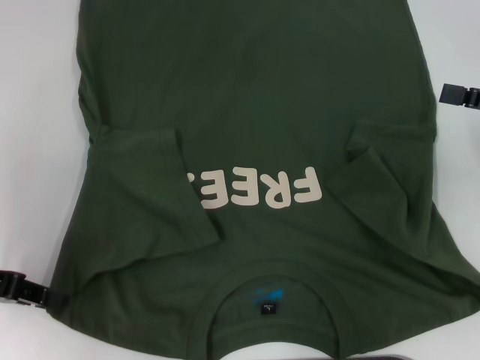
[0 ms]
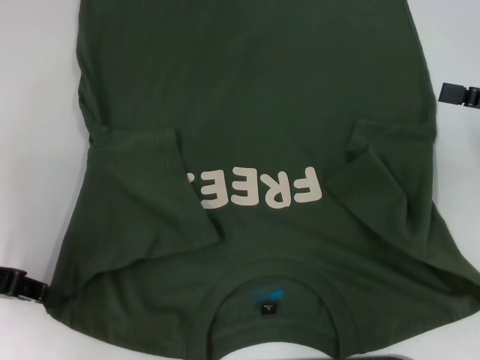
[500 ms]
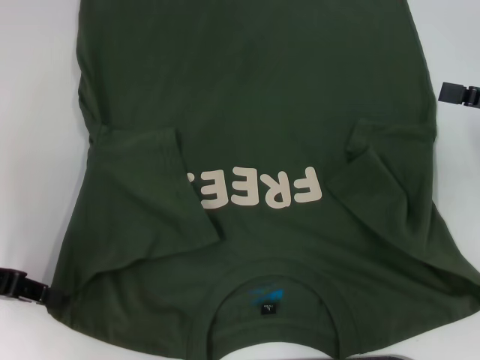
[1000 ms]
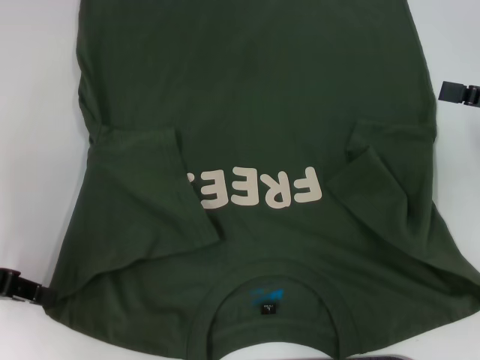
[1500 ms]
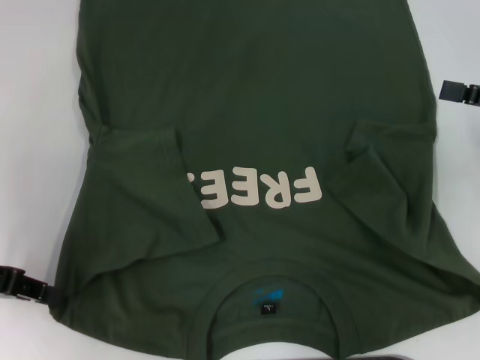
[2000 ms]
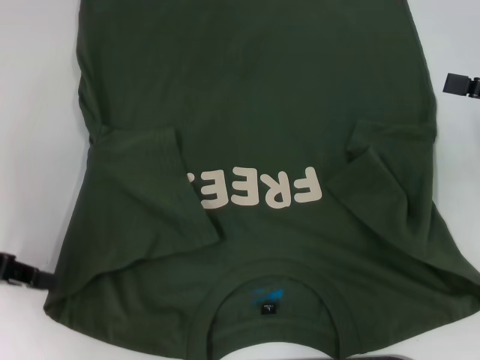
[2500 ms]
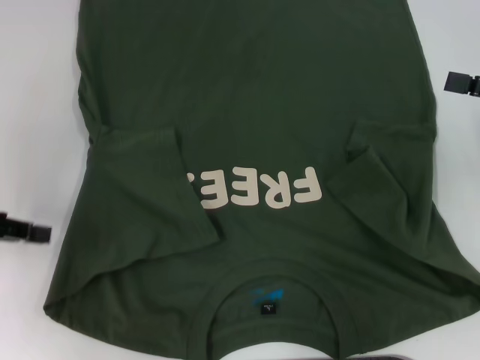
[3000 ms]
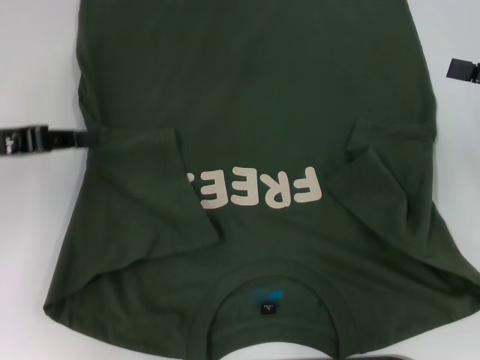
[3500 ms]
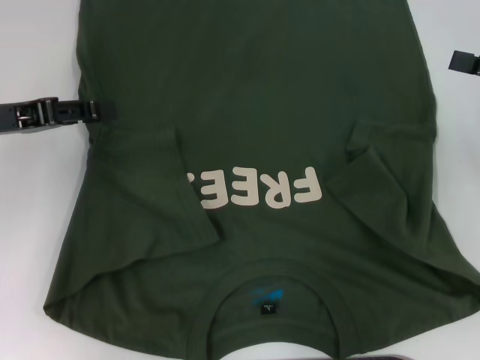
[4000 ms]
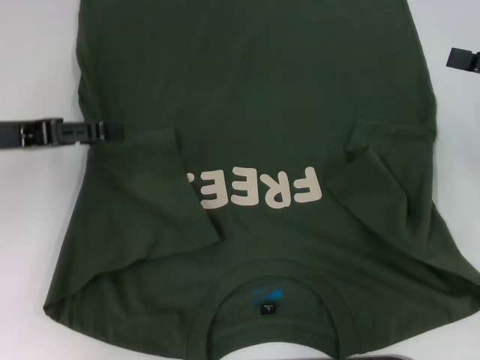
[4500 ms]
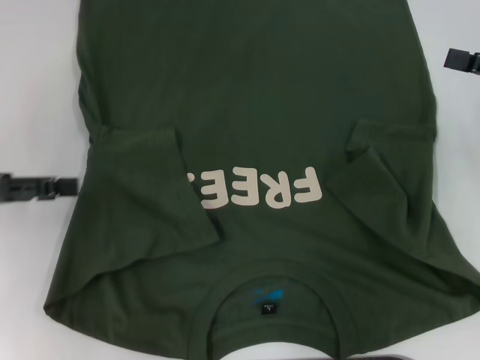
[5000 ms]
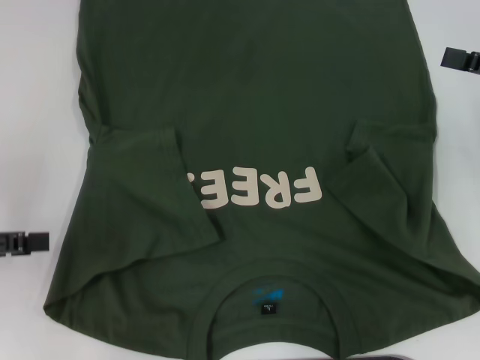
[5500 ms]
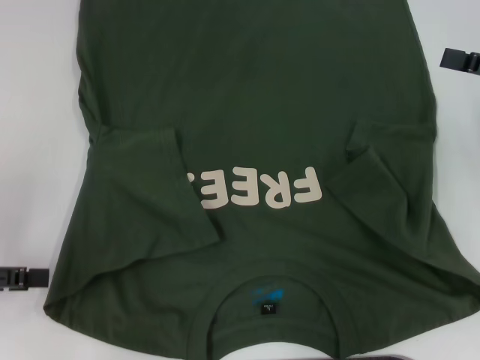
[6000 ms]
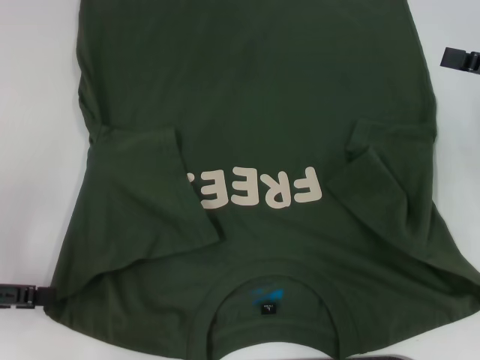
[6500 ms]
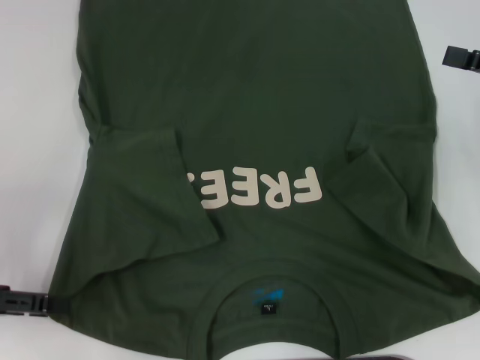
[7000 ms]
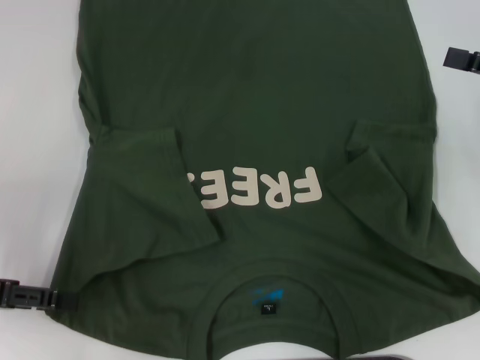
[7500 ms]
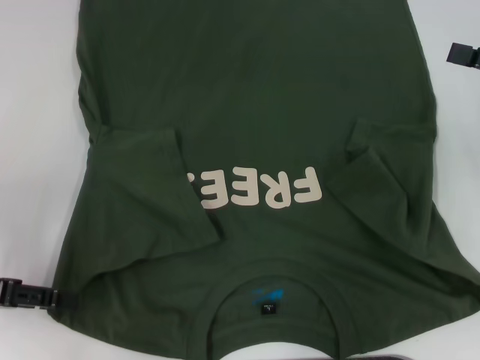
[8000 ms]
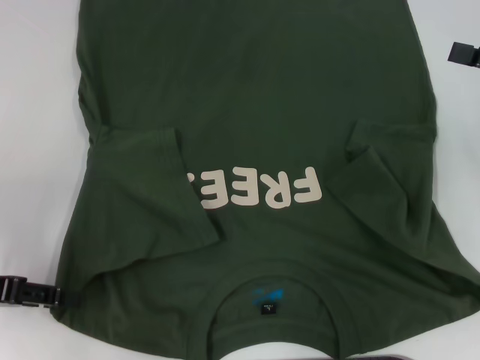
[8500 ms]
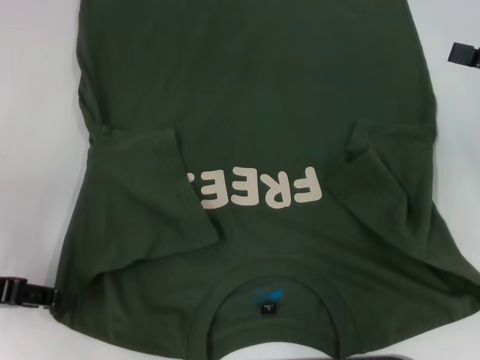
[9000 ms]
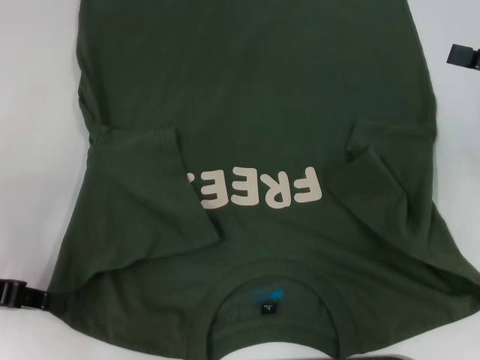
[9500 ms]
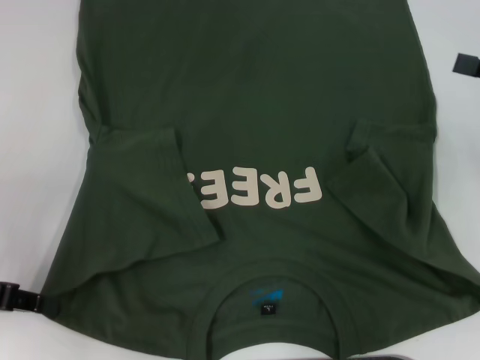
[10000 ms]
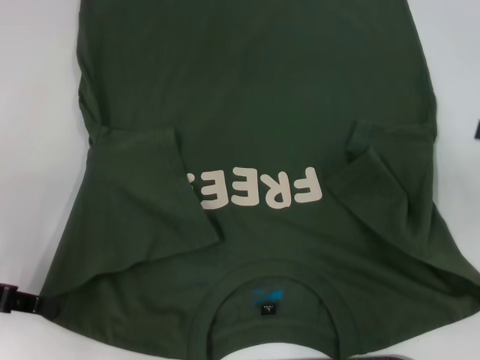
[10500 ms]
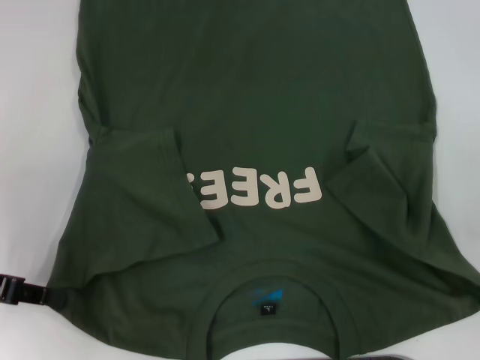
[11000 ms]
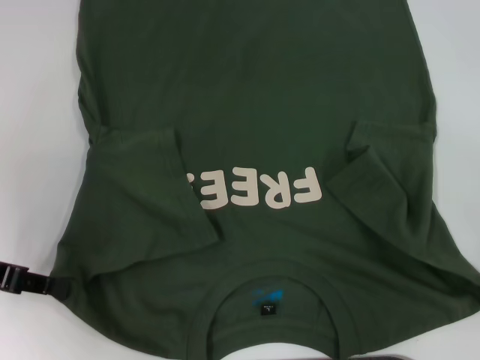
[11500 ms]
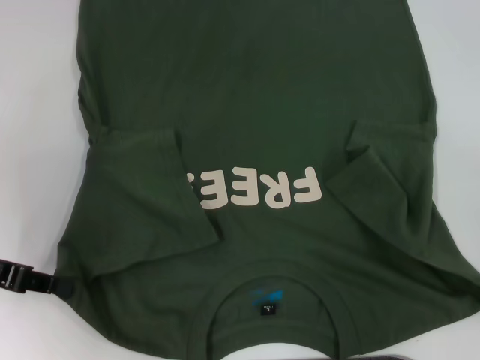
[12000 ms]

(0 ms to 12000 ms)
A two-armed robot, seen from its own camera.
Step, 0 ms - 10500 ms: Grab the bottom left corner with your left hand.
0 ms - 2000 ms: Neither gripper changes place.
2000 ms - 4000 ms: The left gripper heads forward, covering about 5 cm.
4000 ms - 6000 ms: The left gripper is displaced backward and to the left by some 10 cm, and opens.
6000 ms - 8000 ms: The grippers stay close to where they were, moving slightly.
8000 ms - 10000 ms: The left gripper closes up.
10000 ms - 12000 ms: The right gripper moves backward, about 15 cm.

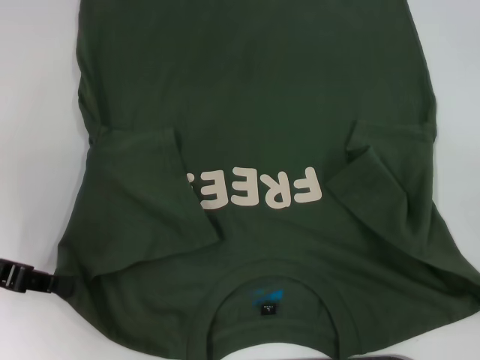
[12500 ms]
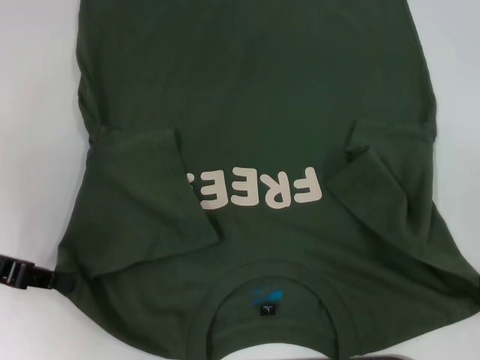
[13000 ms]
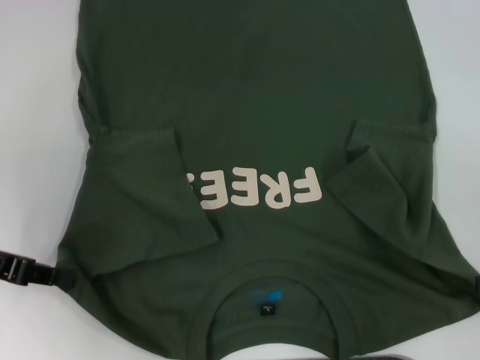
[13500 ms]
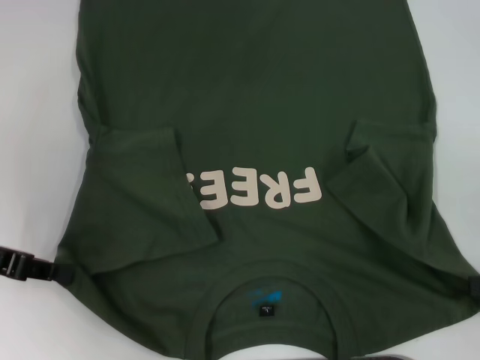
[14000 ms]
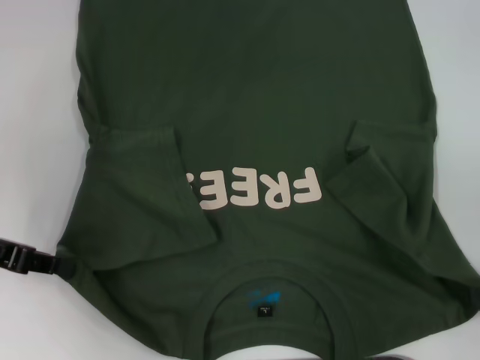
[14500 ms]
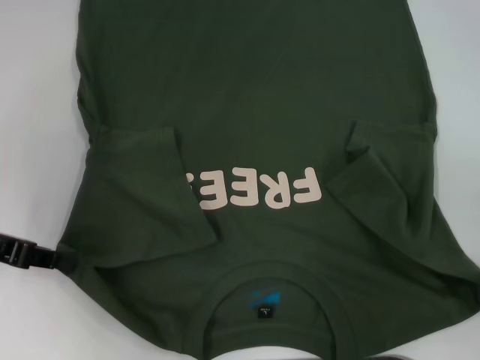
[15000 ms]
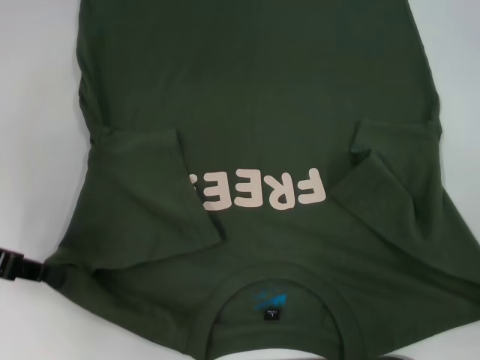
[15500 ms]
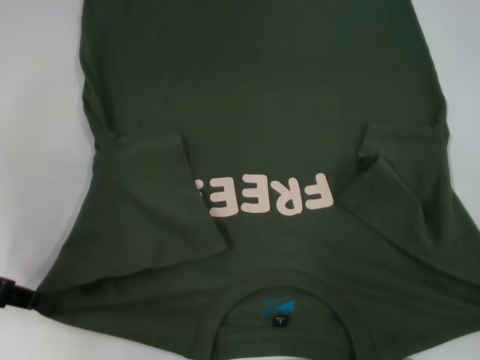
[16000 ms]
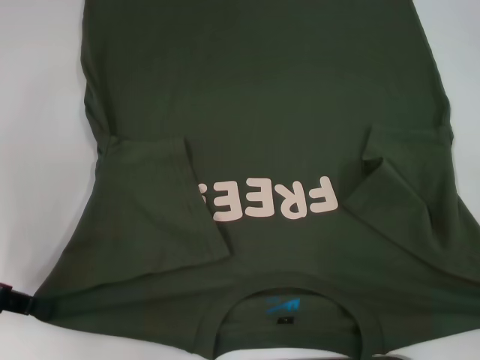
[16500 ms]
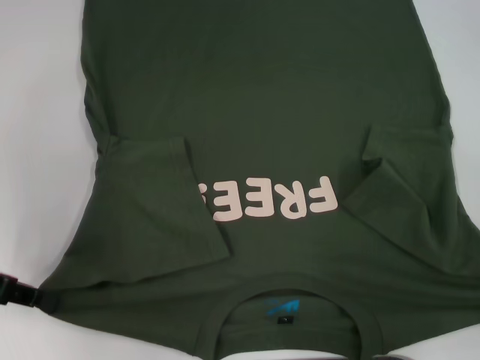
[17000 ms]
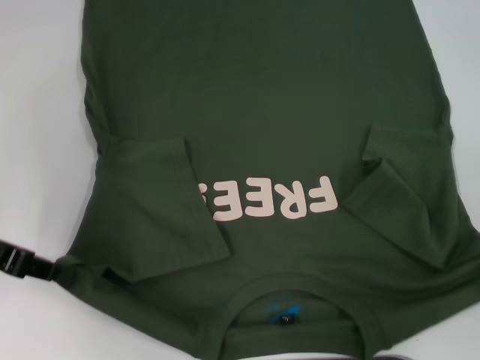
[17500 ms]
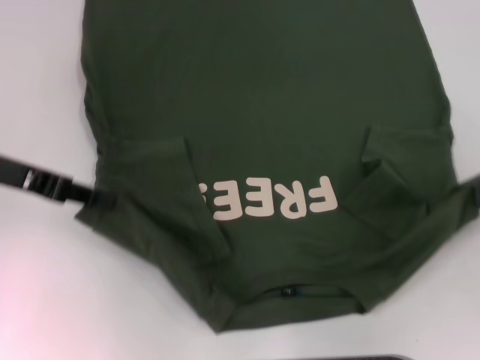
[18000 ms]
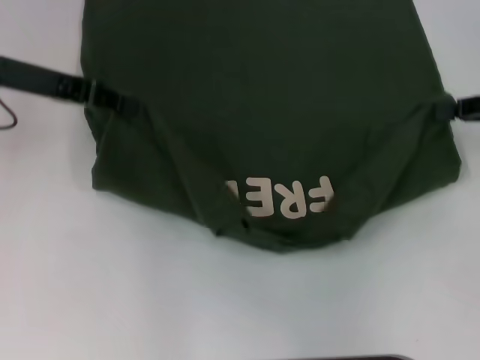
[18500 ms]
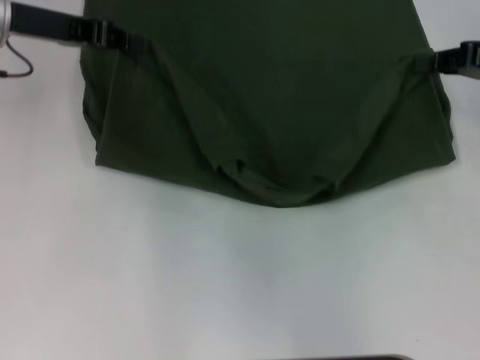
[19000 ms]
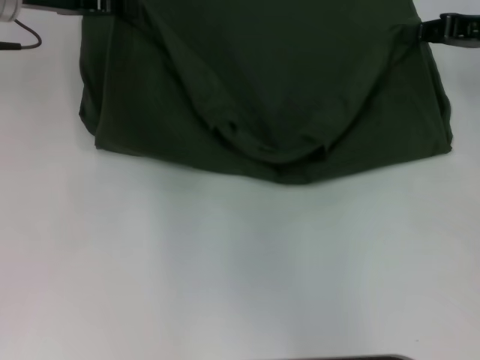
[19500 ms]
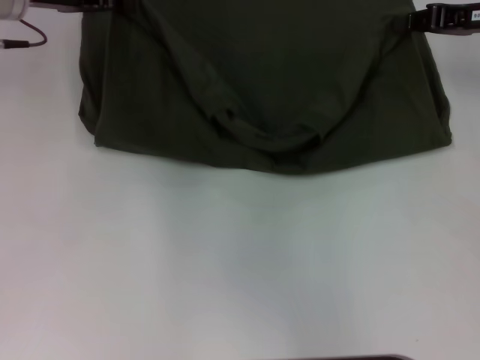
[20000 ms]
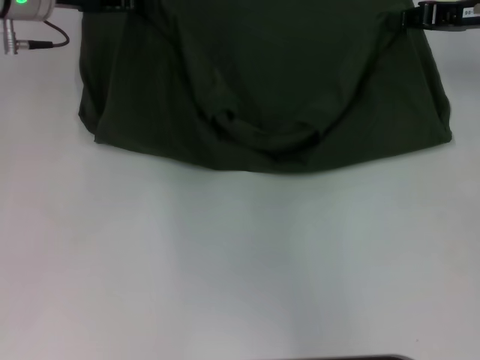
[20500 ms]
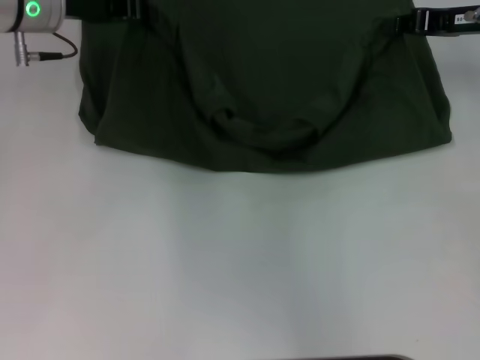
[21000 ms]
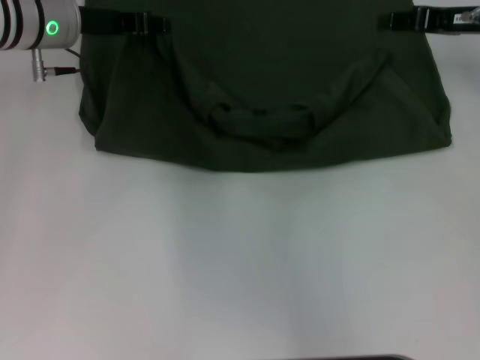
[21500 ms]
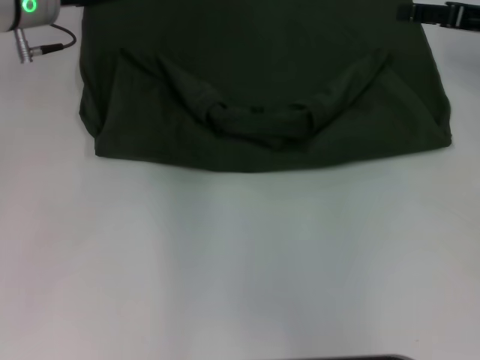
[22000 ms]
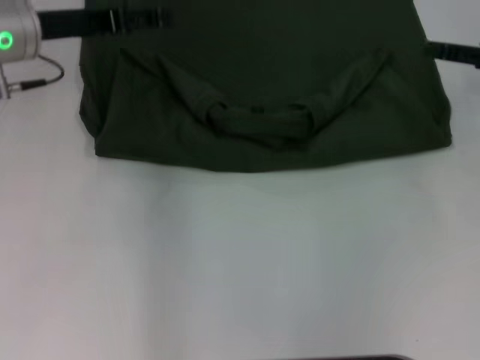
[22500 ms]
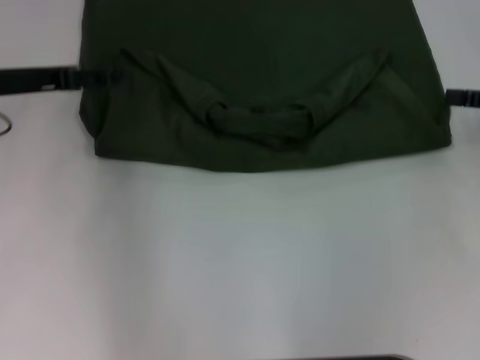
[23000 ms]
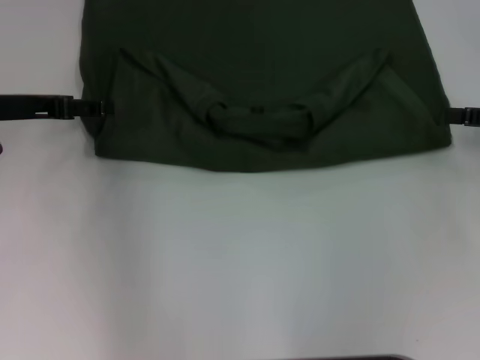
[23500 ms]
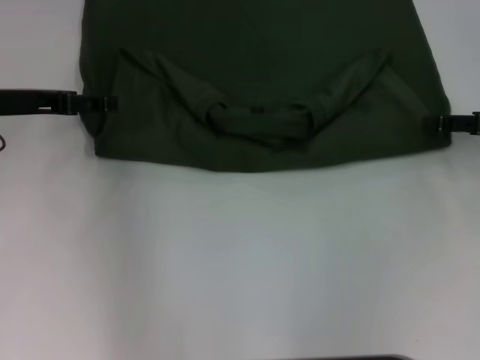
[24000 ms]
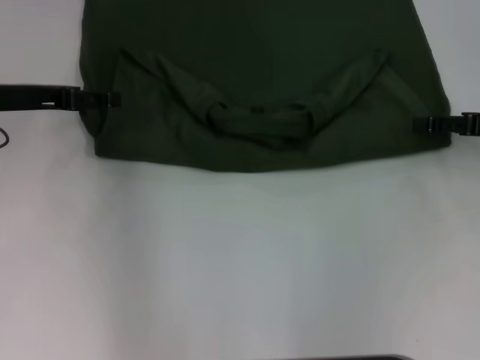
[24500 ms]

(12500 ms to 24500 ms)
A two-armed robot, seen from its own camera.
Step, 12500 ms - 16000 ms: Grab the bottom right corner with your right hand.
Step, 16500 ms - 22500 ms: Fold the clothes with your left hand.
Step, 16500 ms - 22500 ms: Fold the clothes with your right hand.
12500 ms - 14500 ms: The grippers make only small movements.
14500 ms - 16500 ms: The right gripper changes place by roughly 5 cm, and closes.
16500 ms - 18500 ms: The right gripper moves forward, roughly 20 cm; the left gripper heads forward, to the right and upward, covering some 15 cm.
18500 ms - 20500 ms: The left gripper travels forward by approximately 5 cm. The right gripper shifts roughly 10 cm forward and to the left.
20500 ms - 22500 ms: The right gripper heads backward and to the right, covering approximately 10 cm, and opens its fingers, while the left gripper ends up about 5 cm from where it was, and opens.
22500 ms - 24500 ms: The left gripper shifts by about 5 cm.

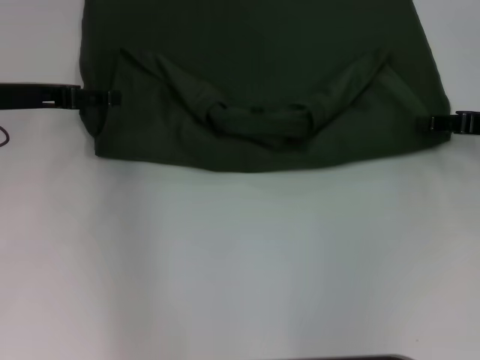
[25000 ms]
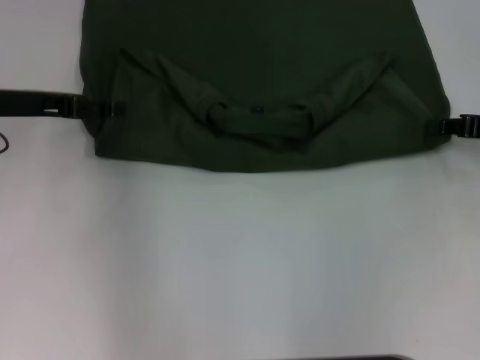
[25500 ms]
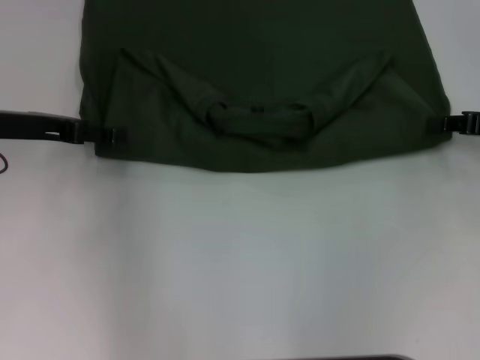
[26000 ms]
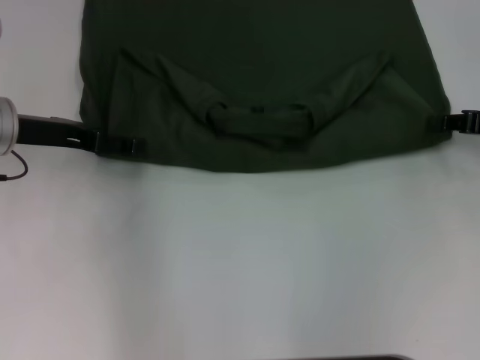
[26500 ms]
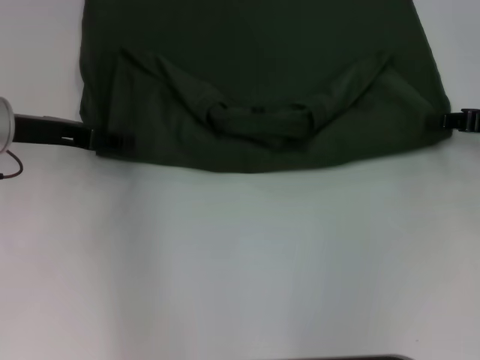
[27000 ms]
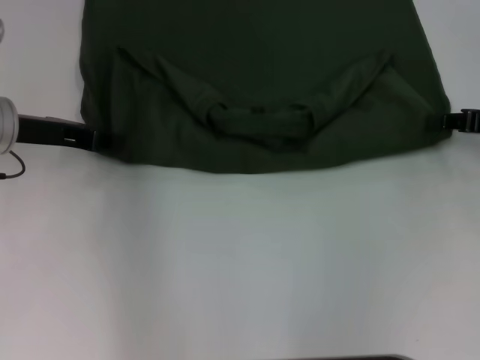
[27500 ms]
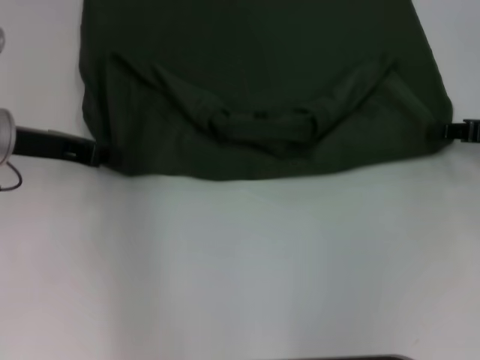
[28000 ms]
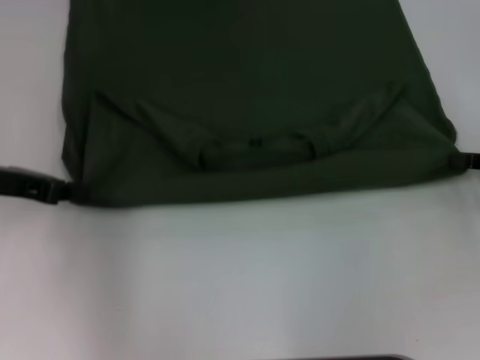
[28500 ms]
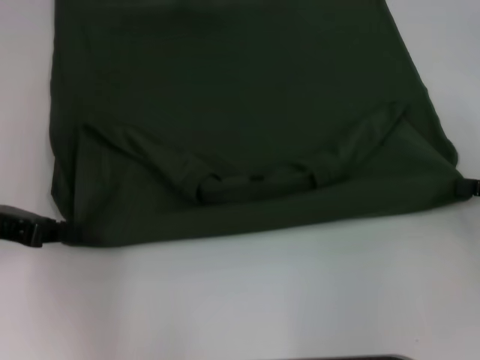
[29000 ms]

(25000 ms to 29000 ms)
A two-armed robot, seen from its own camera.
27000 ms - 29000 ms: The right gripper heads backward, covering about 10 cm. The left gripper goes roughly 10 cm backward and to the left, and closes.
